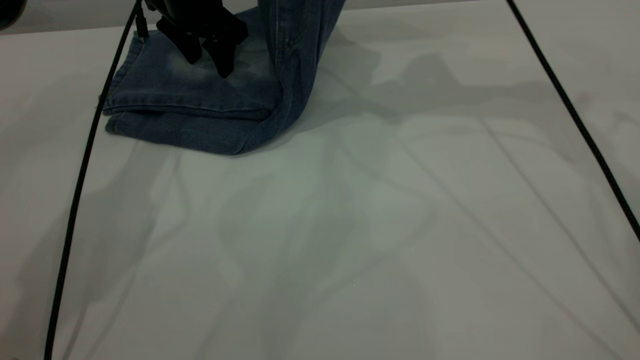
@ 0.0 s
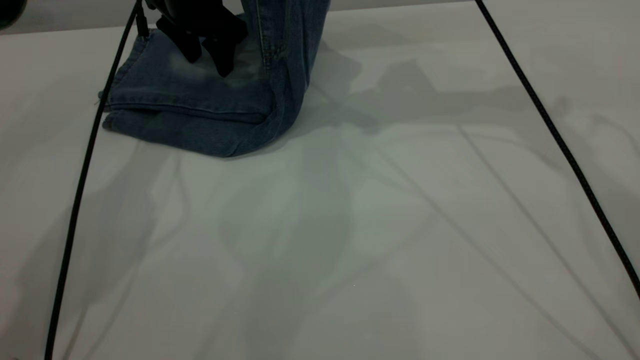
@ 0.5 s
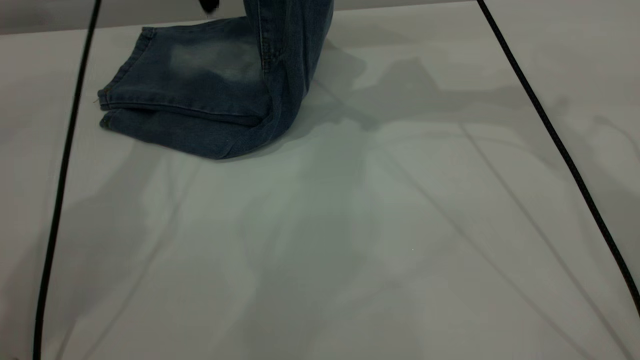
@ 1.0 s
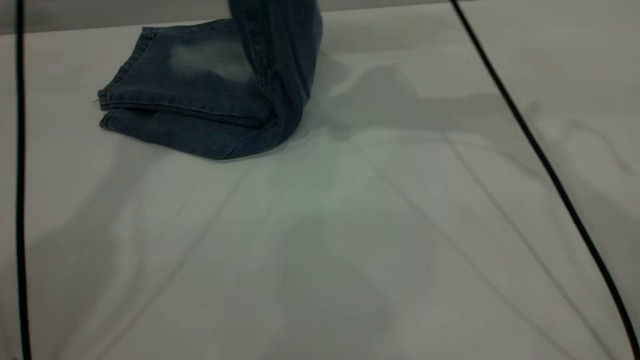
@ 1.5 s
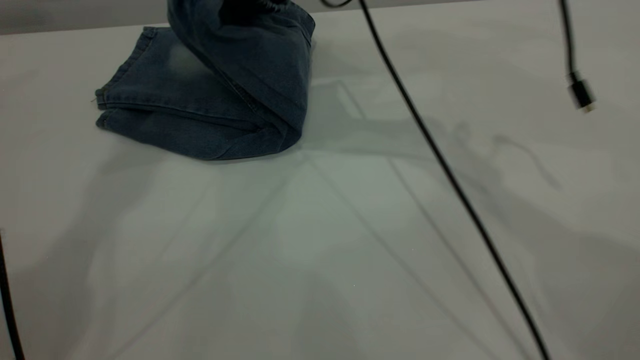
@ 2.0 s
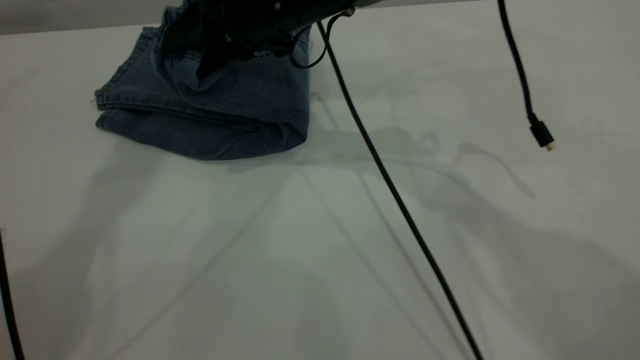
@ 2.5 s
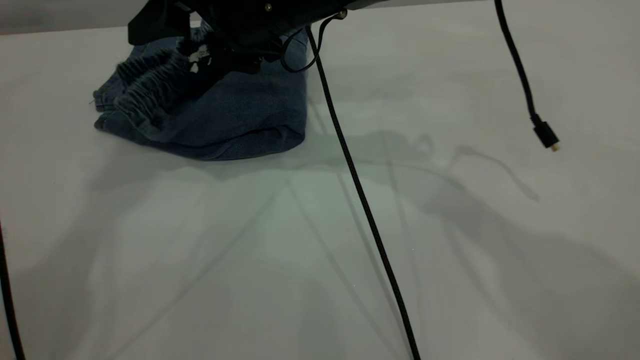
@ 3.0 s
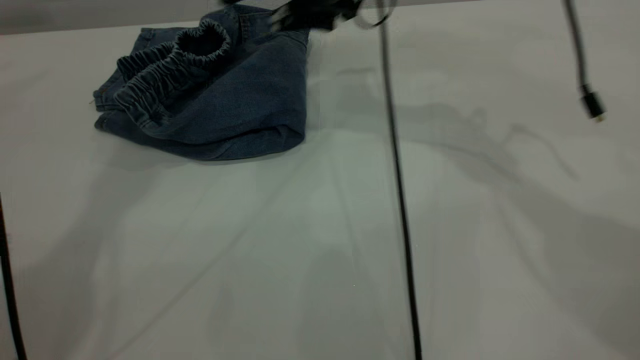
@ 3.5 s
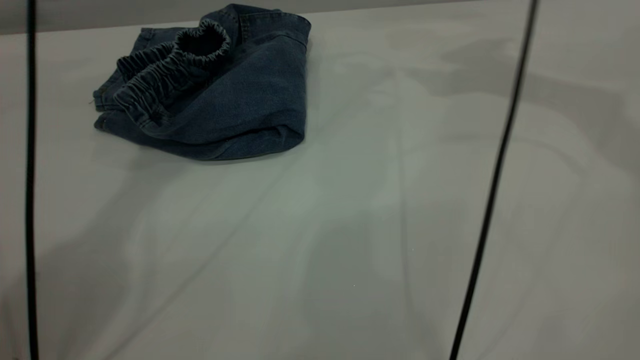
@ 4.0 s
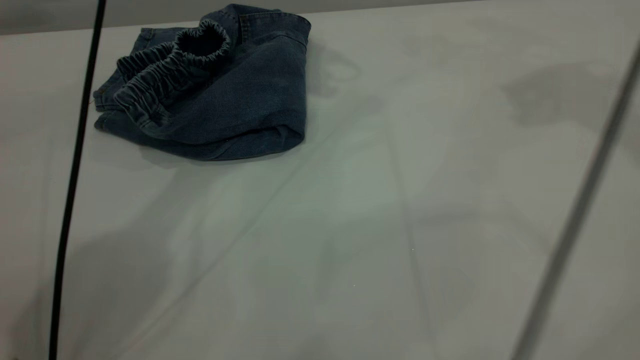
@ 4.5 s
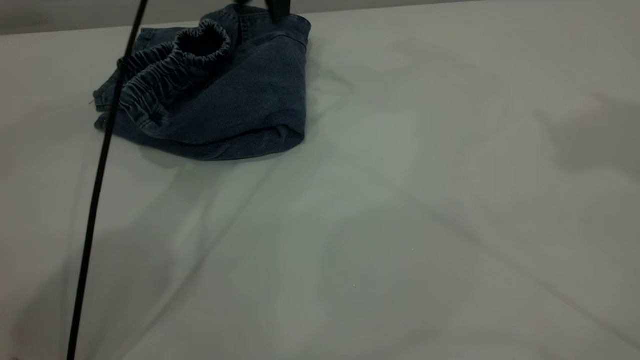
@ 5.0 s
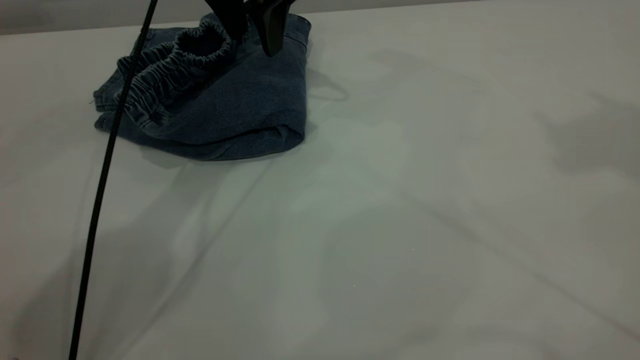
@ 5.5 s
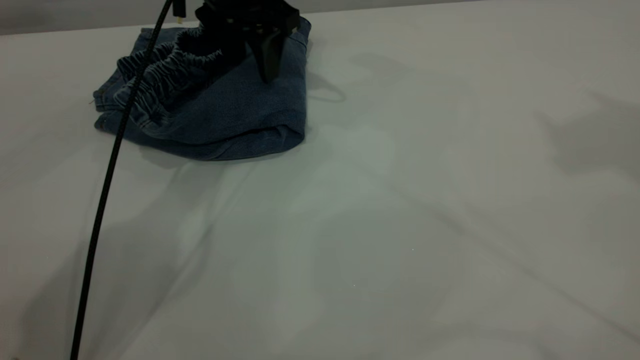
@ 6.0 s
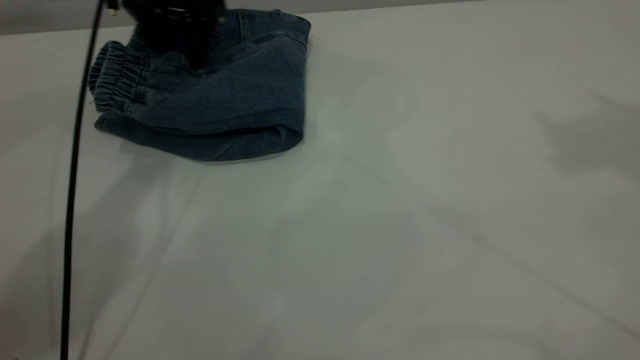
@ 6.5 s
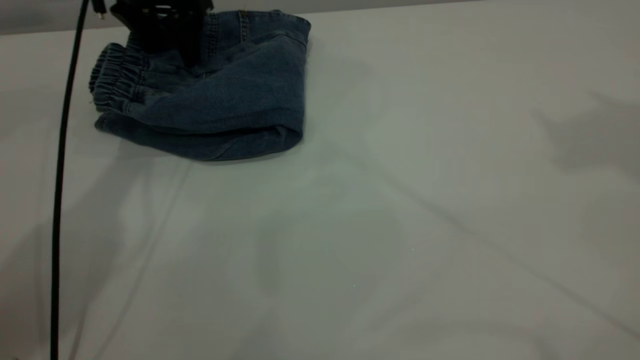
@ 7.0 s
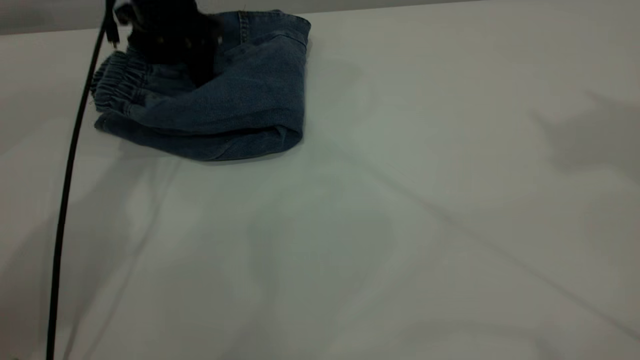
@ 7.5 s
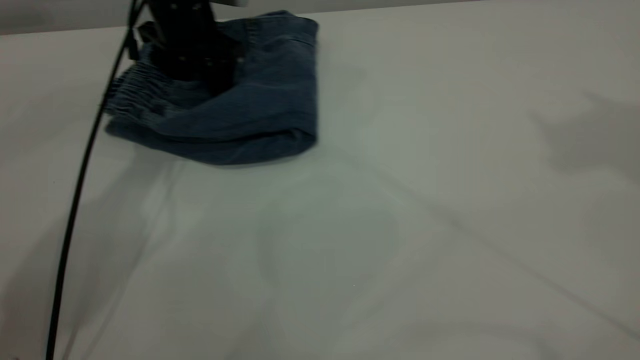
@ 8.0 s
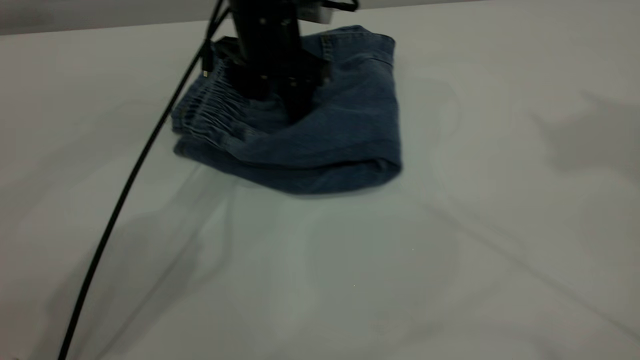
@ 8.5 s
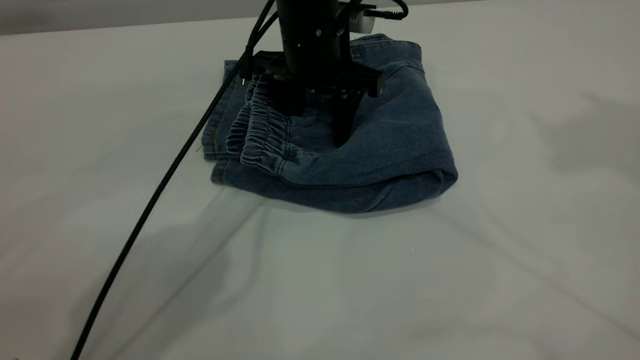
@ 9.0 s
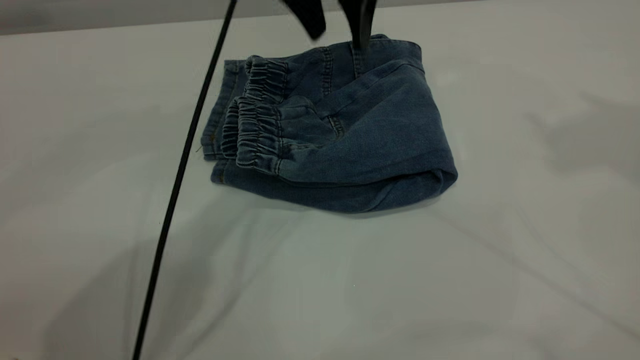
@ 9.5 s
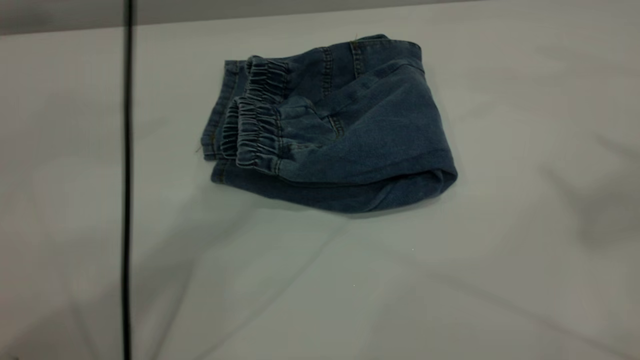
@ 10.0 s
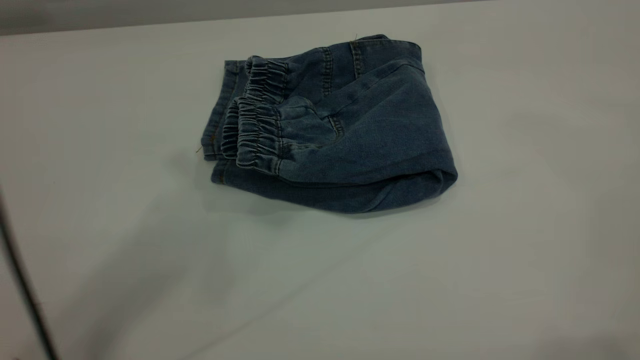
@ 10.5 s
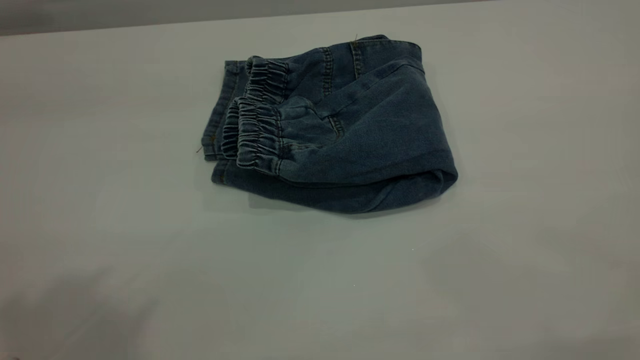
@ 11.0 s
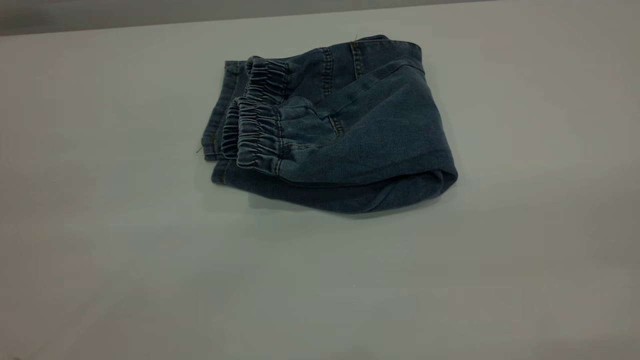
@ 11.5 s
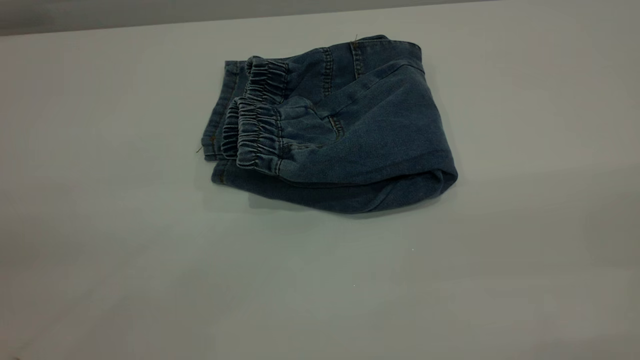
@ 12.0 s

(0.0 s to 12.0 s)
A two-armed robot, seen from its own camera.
Step, 0.0 s - 3.5 s: Fold your pants from right to left.
0.0 s - 2.0 s: The left gripper travels upward by some 35 cm; the right gripper shifts about 15 cm to the left.
2.0 s - 4.0 s: The right gripper shifts some 25 cm to the right and upward, and opens its fingers. Meanwhile the left gripper is displaced downward and to the right by approximately 10 cm.
4.0 s - 6.0 s: The left gripper travels downward by some 20 cm. Meanwhile the right gripper shifts some 25 cm upward and backward.
6.0 s - 8.0 s: The left gripper moves downward and to the left, some 10 cm.
8.0 s - 10.0 s: The right gripper travels backward by approximately 10 cm, while the left gripper travels upward by approximately 30 cm.
10.0 s - 12.0 s: The left gripper shifts some 40 cm backward and to the left.
